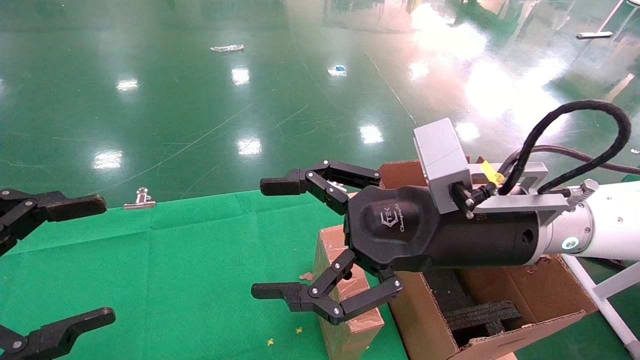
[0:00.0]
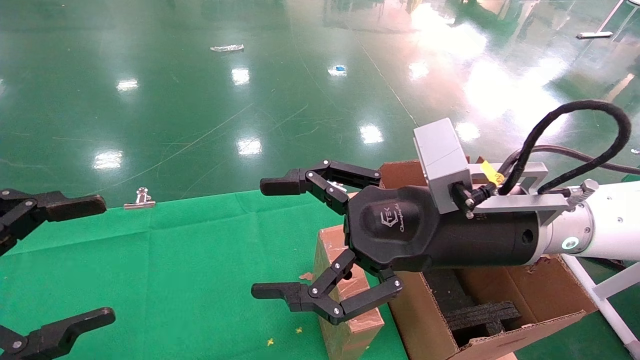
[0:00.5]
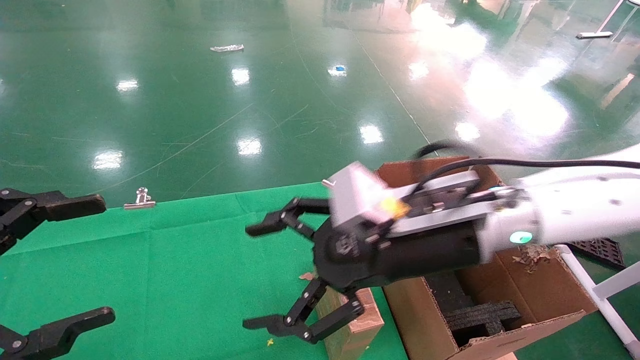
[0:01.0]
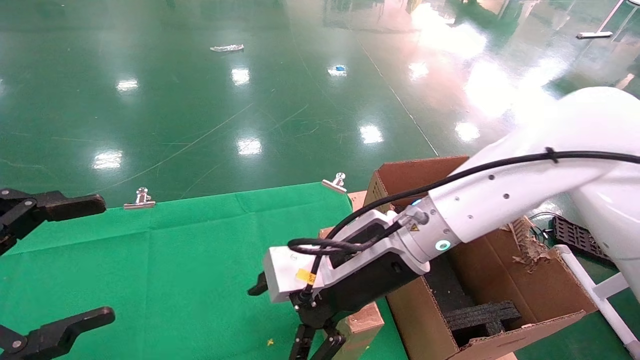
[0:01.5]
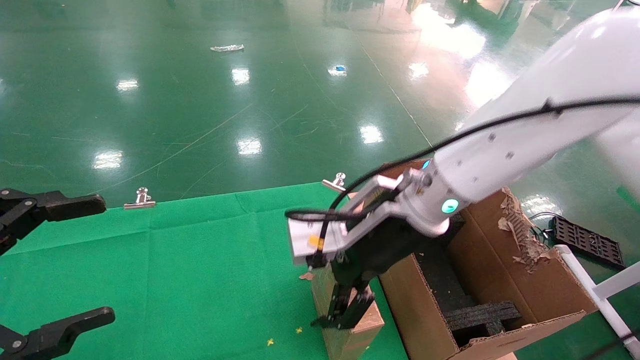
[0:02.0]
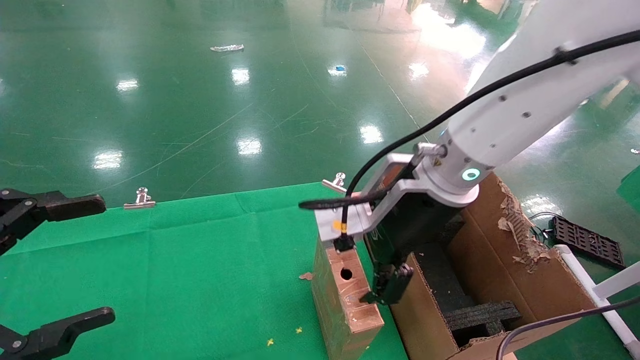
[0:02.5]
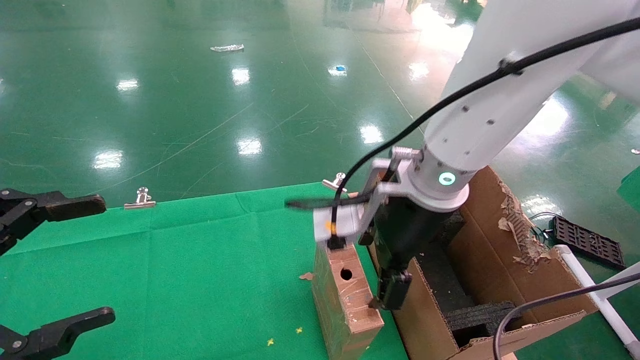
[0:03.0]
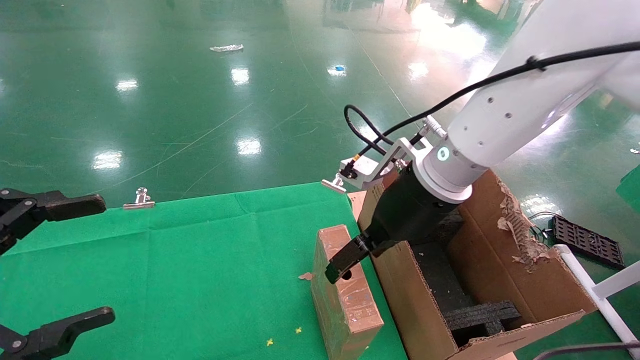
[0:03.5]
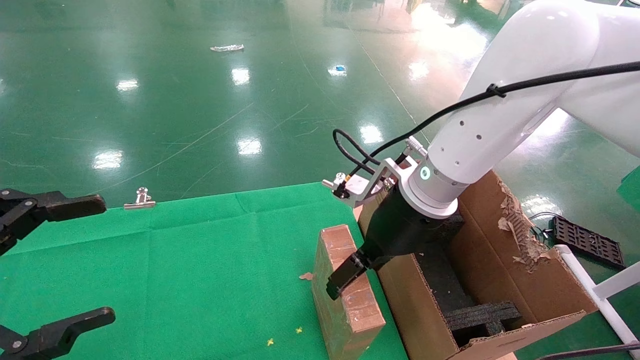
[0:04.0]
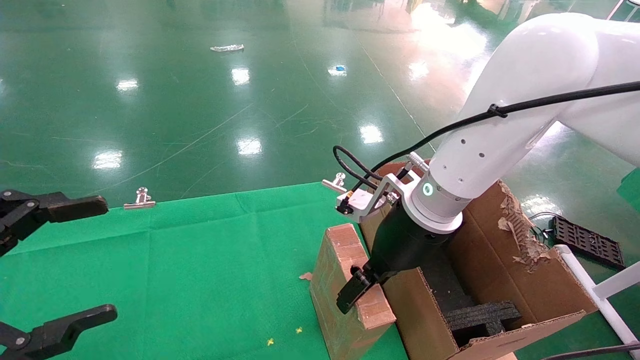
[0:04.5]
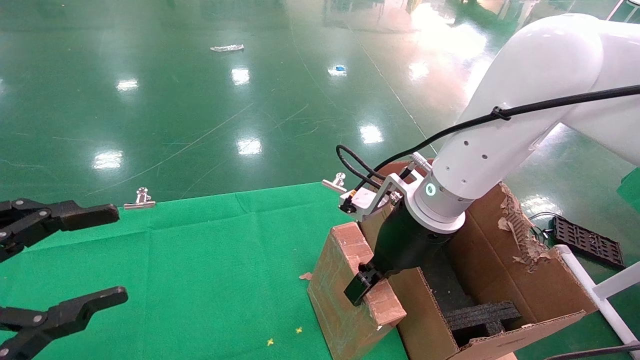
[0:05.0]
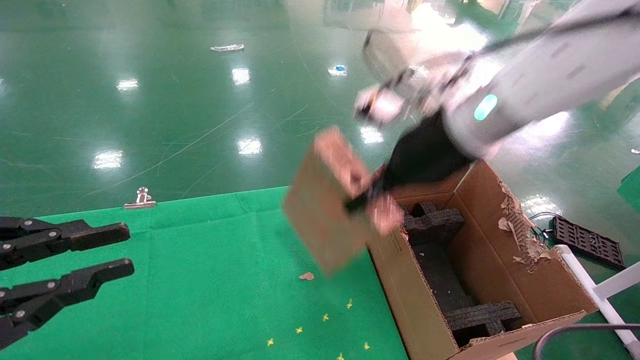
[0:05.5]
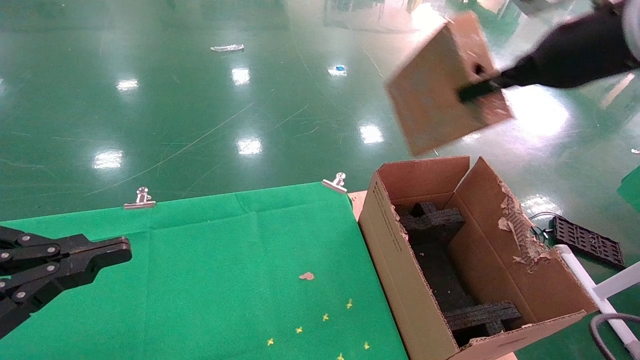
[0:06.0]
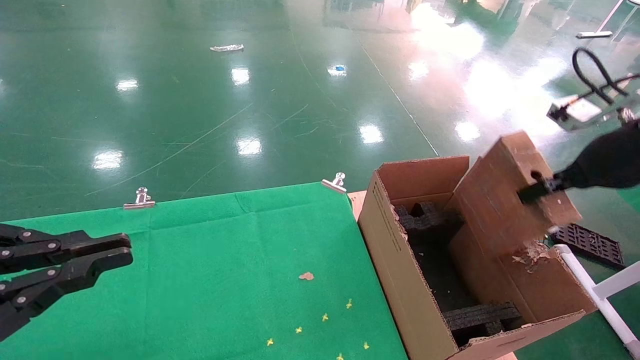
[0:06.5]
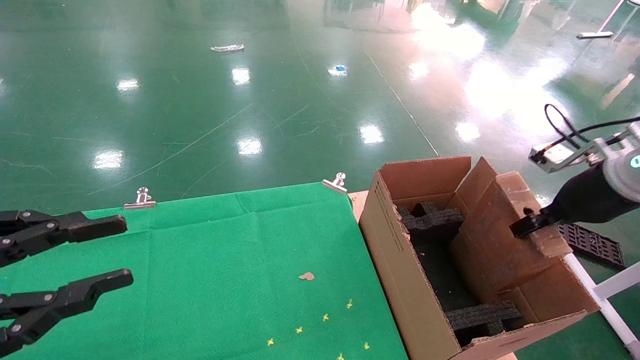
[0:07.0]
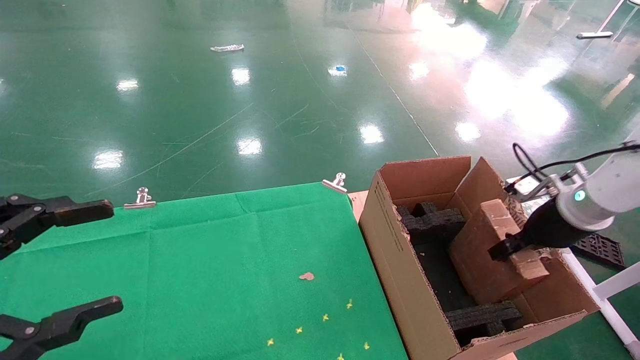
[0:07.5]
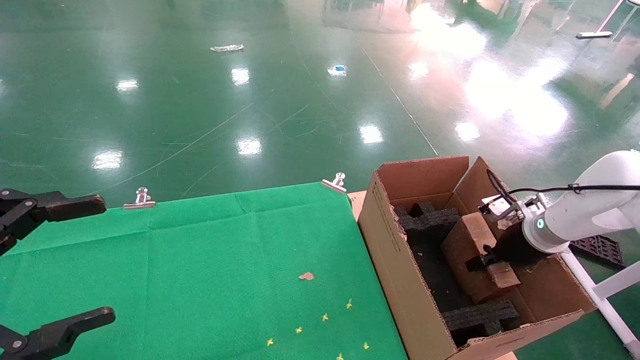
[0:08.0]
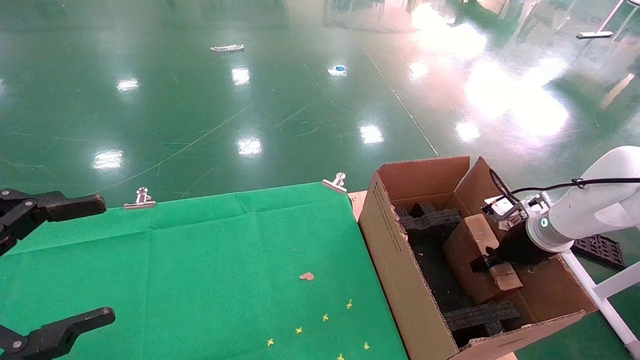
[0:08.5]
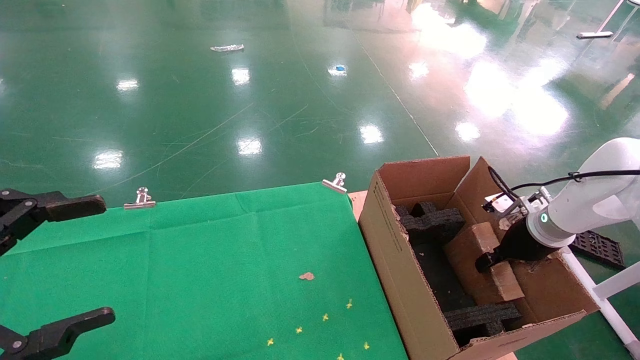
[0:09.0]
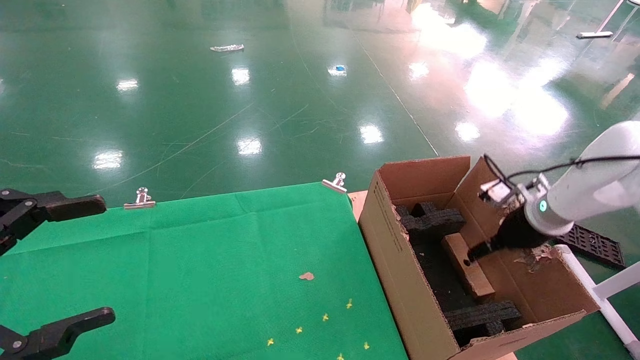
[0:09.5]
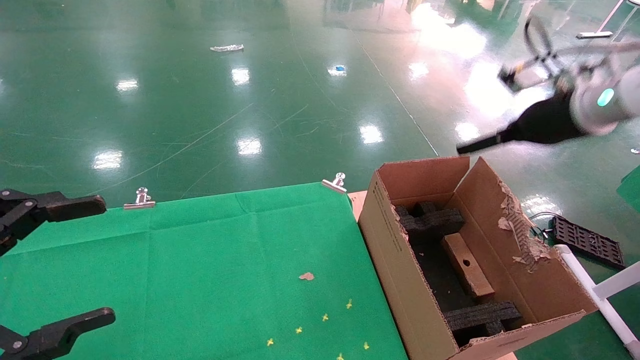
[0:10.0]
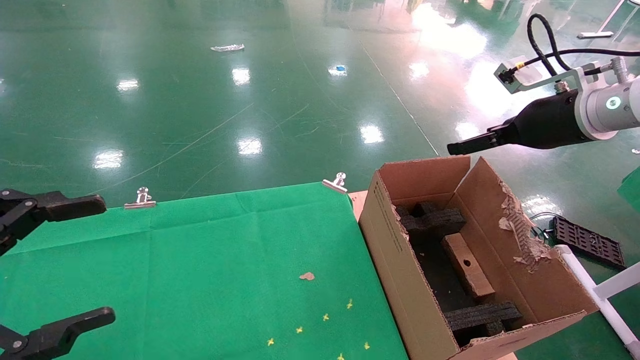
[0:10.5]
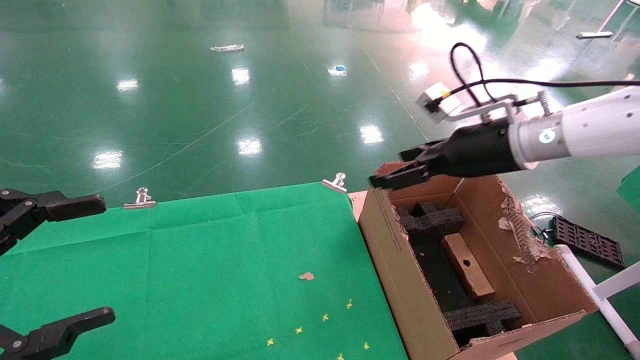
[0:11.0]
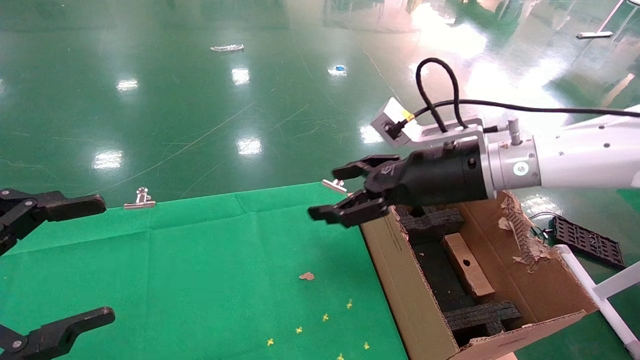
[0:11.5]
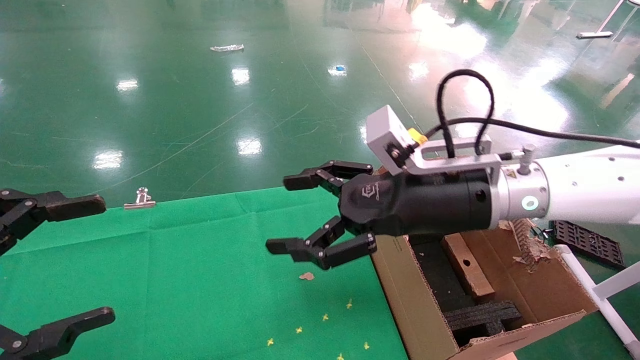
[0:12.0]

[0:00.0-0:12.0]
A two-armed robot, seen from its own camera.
Task of the whole recording: using a robotic arm to pick up a cardboard box and palace it the carton.
Step, 0:01.5 to 0:05.0: Pick up the mouse and the power cord paper box.
Step, 0:05.5 to 0:09.5: Place the mouse and the power cord paper box into the container.
0:00.0 to 0:02.0: The right gripper goes some 10 cm forward and to the left.
0:04.0 to 0:06.0: The left gripper closes up, while the right gripper goes some 25 cm to the right and upward, and closes.
0:06.0 to 0:08.0: The right gripper goes approximately 30 cm downward. The left gripper opens its fingers.
0:08.0 to 0:10.0: The right gripper is displaced upward by approximately 20 cm, and opens.
0:10.0 to 0:12.0: The right gripper is displaced to the left by about 20 cm.

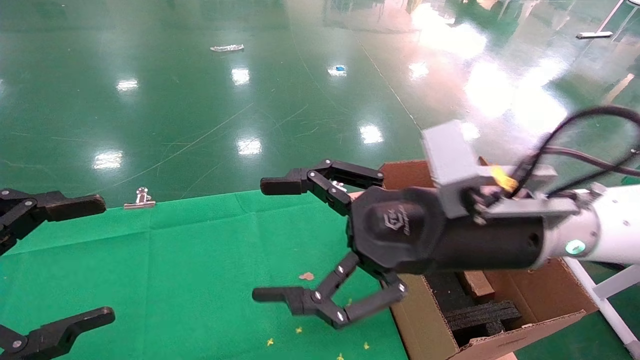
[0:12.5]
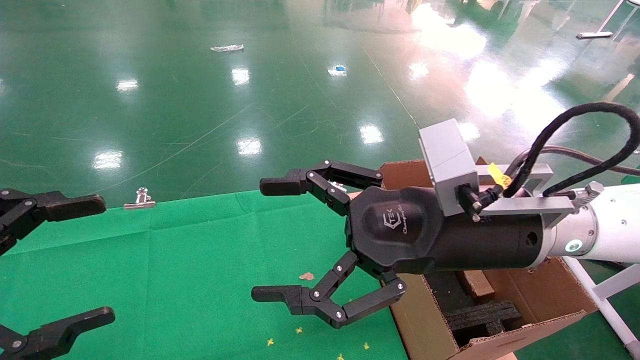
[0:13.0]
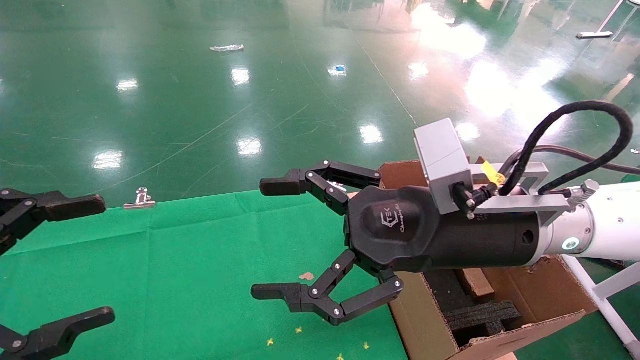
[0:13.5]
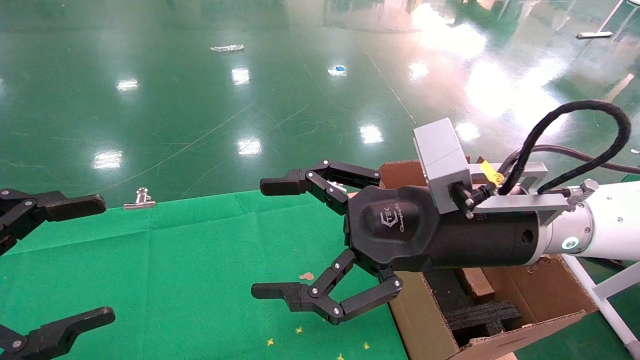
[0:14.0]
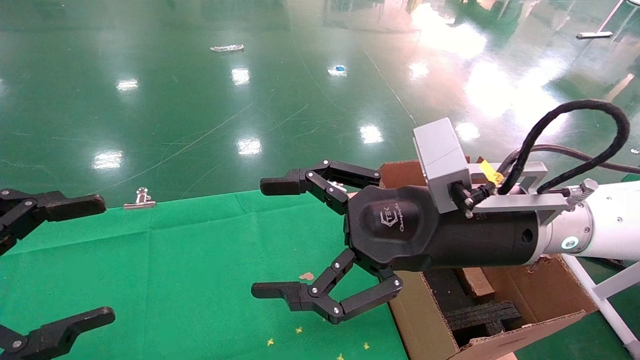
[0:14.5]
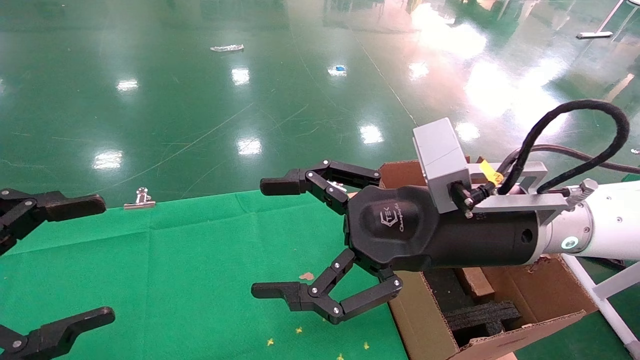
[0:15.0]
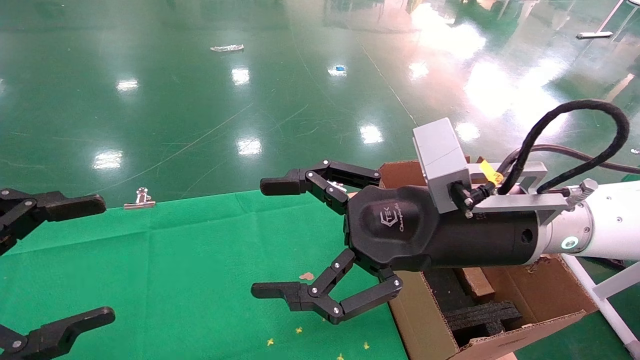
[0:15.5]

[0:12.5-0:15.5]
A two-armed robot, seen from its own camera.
Task of the whole recording: using a robotic arm to pick up a cardboard box and palace it the carton.
0:12.5 to 0:15.5: Neither gripper changes place.
